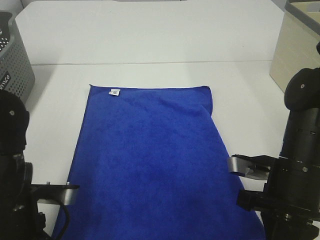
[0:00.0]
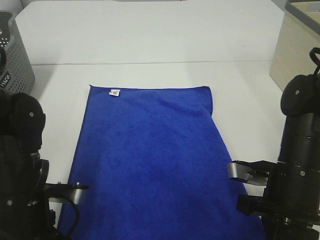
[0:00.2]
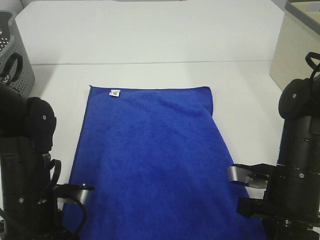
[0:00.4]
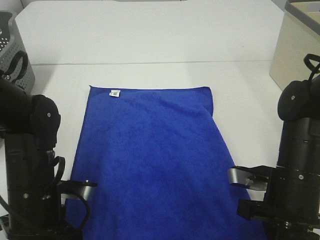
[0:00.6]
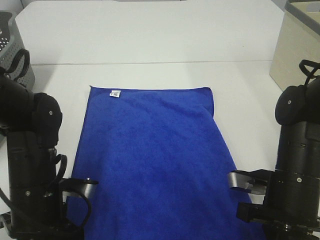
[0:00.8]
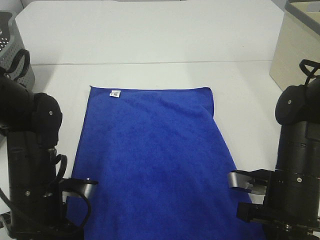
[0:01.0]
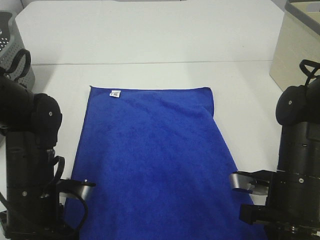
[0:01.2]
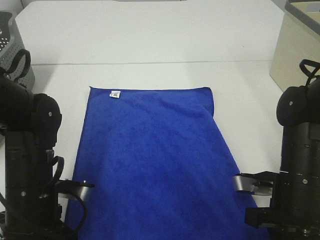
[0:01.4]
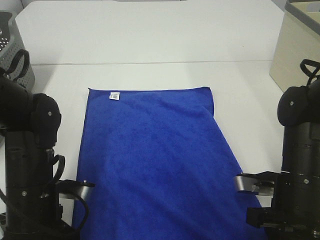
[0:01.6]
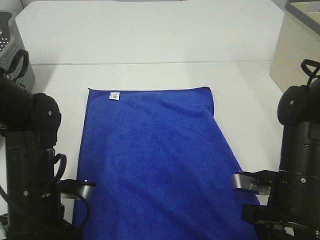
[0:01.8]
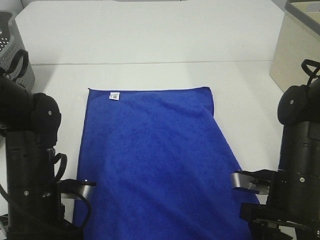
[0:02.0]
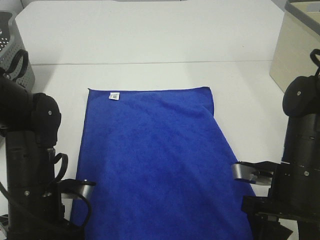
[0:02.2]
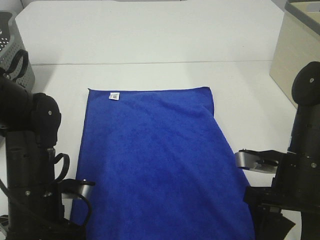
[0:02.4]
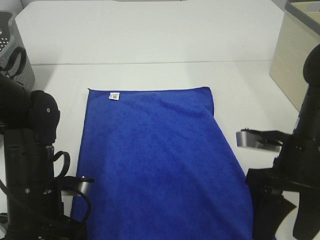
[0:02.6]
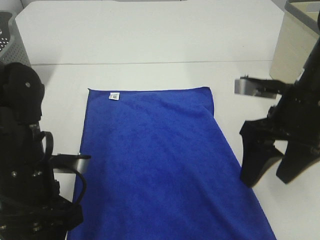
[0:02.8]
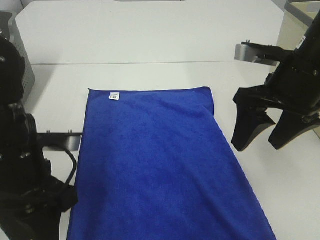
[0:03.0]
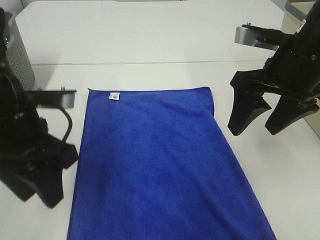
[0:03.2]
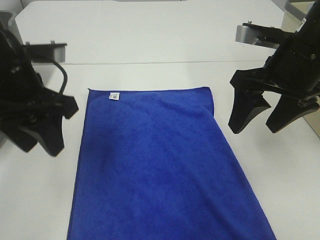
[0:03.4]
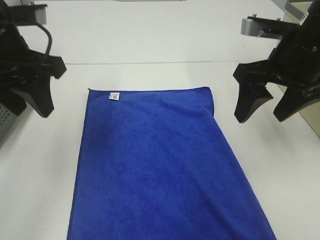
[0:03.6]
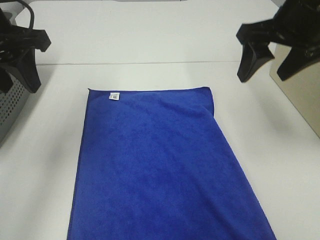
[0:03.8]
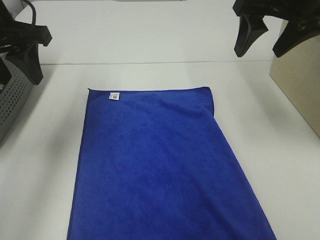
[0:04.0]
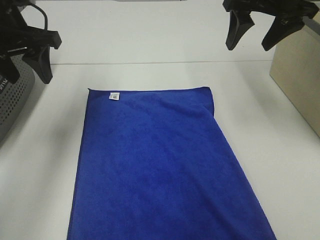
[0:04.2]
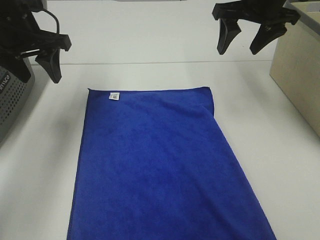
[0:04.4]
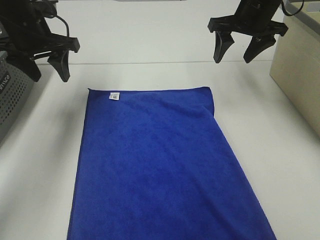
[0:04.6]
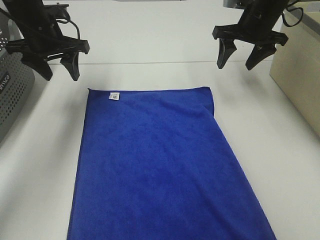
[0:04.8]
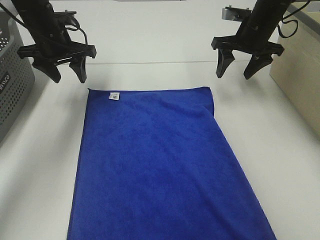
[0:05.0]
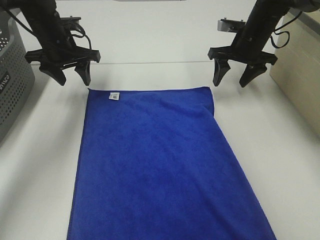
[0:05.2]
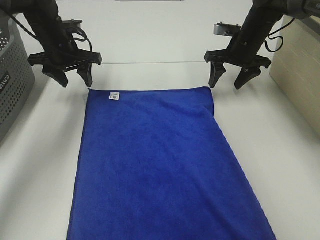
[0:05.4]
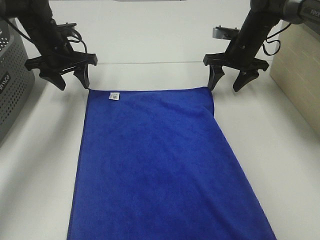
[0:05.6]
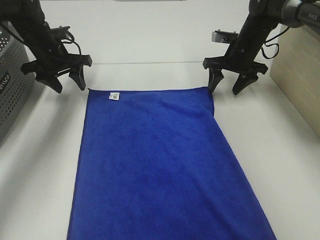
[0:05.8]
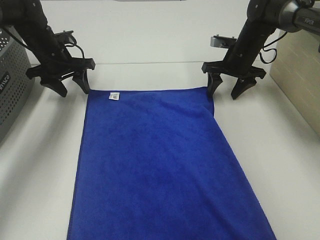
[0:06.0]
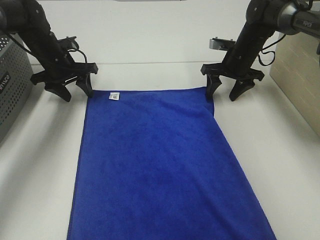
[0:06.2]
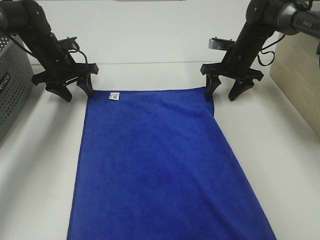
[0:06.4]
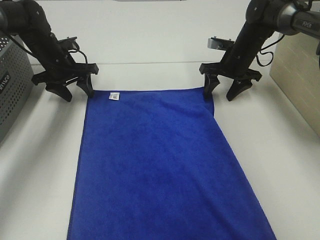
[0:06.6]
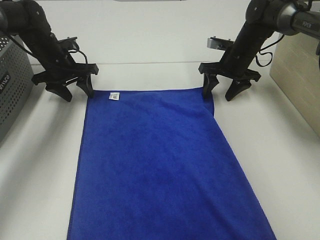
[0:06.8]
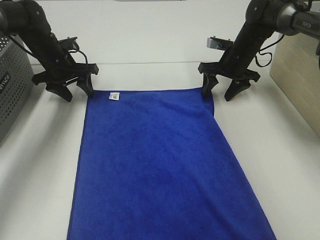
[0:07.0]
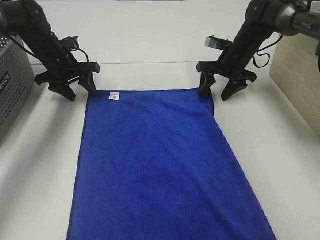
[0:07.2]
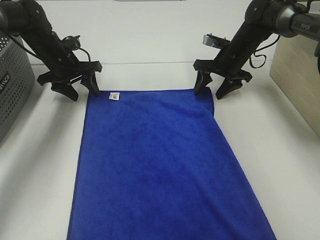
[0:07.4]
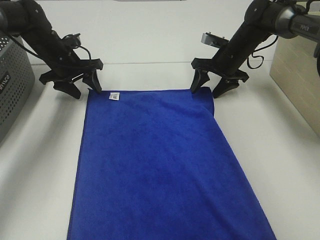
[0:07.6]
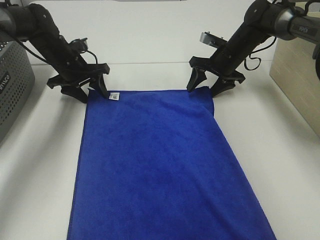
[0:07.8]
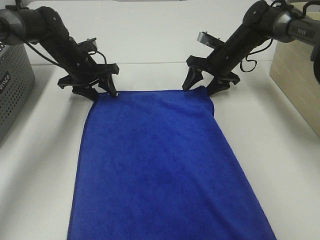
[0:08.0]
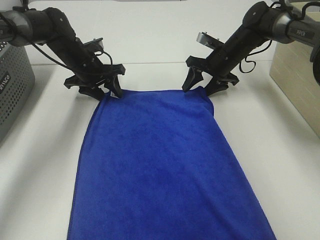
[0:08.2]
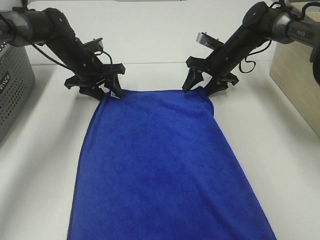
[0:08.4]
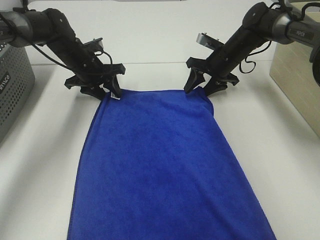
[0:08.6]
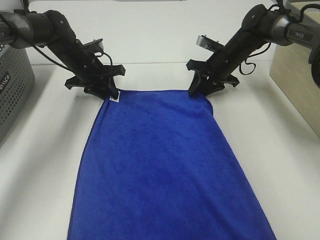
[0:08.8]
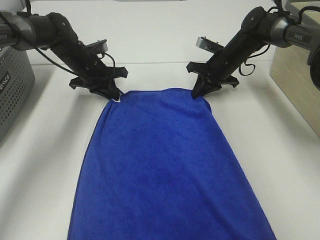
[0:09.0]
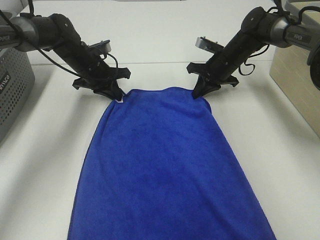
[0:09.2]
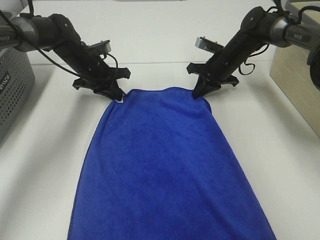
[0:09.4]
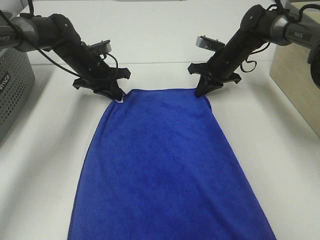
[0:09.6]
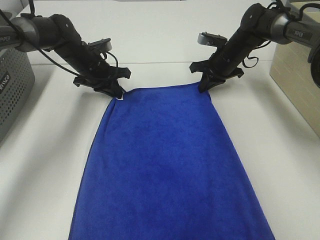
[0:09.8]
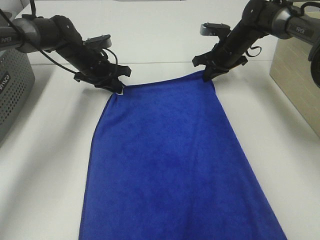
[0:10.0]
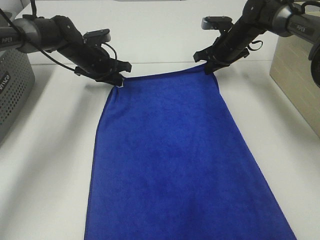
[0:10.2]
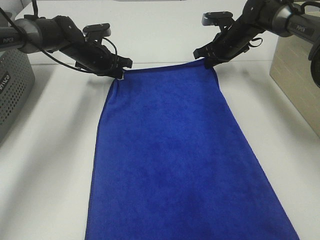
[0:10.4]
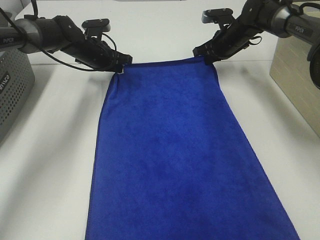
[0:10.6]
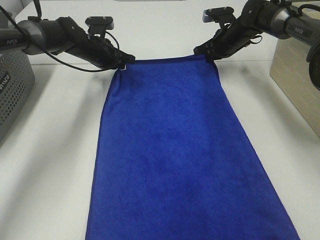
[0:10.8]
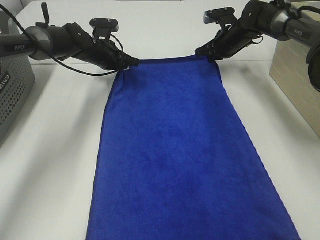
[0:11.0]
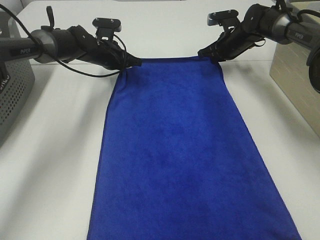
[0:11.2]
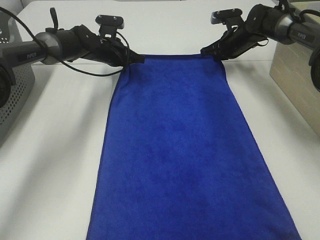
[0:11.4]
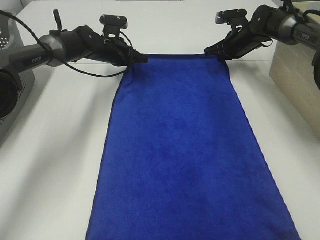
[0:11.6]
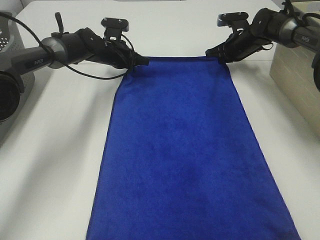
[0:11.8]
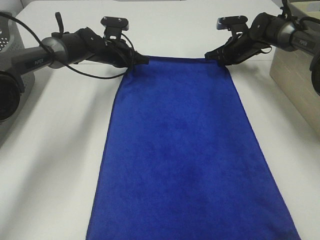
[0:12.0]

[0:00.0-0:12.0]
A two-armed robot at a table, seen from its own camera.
Task of the whole recording: Remove the towel and place it.
Step, 0:00.0 to 0:06.8: Left hand:adjust the blue towel.
Step, 0:00.0 to 0:06.8: Right hand:adjust the blue towel.
0:00.0 to 0:01.6: The right gripper opens up, while the left gripper opens.
0:01.6 to 0:03.0: The left gripper goes approximately 10 cm upward; the right gripper travels upward and forward by roughly 15 cm, and opens.
0:03.0 to 0:04.4: Both grippers move forward, some 20 cm.
0:04.4 to 0:06.0: The two grippers go about 15 cm downward and forward.
0:06.0 to 0:07.6: The grippers make only small movements.
0:07.6 to 0:09.0: The right gripper closes up. Meanwhile the left gripper heads to the right, covering some 5 cm, and closes its fingers.
0:09.0 to 0:10.4: The right gripper moves about 5 cm.
0:10.4 to 0:12.0: The right gripper ends up about 5 cm from where it was.

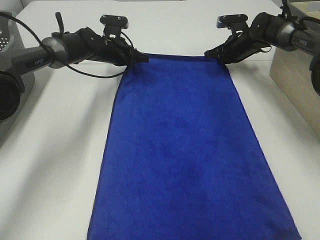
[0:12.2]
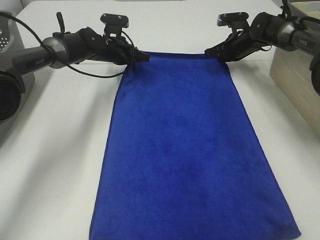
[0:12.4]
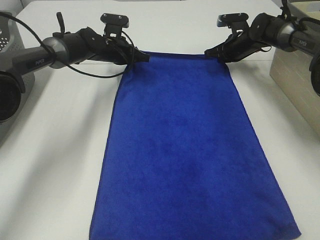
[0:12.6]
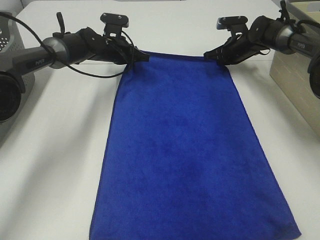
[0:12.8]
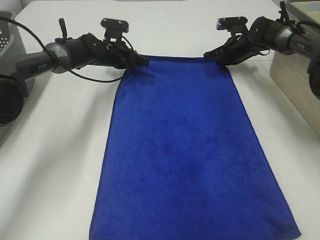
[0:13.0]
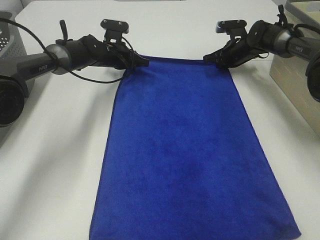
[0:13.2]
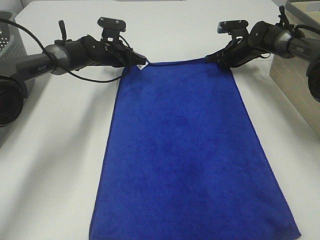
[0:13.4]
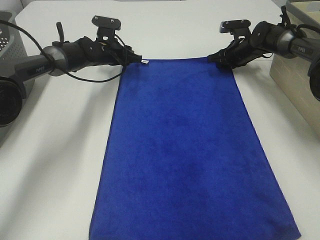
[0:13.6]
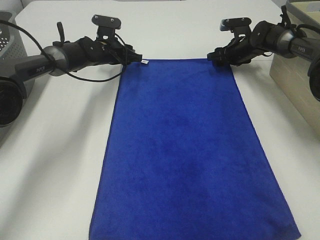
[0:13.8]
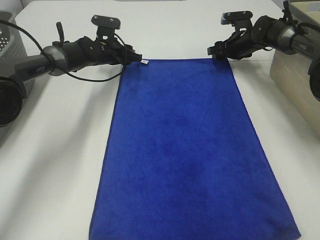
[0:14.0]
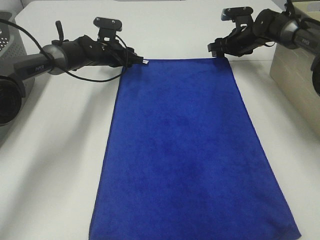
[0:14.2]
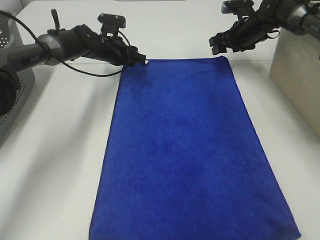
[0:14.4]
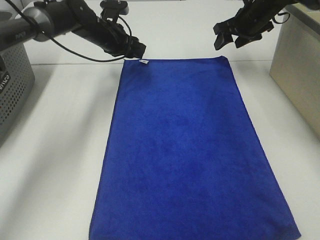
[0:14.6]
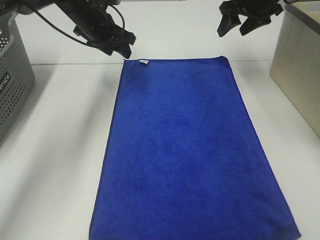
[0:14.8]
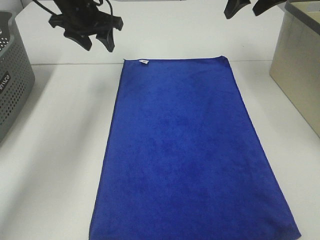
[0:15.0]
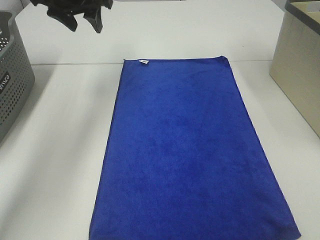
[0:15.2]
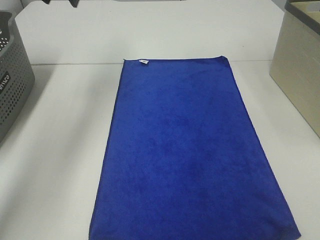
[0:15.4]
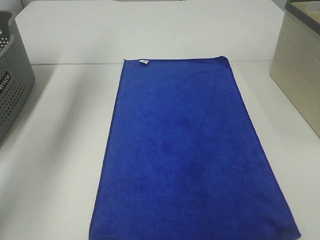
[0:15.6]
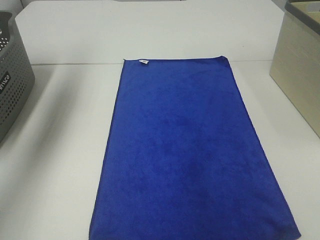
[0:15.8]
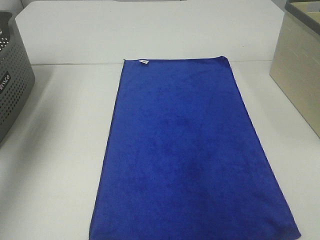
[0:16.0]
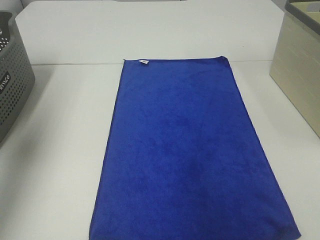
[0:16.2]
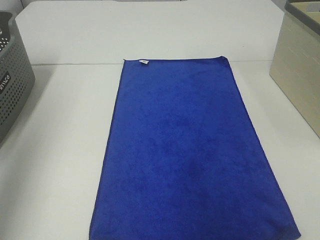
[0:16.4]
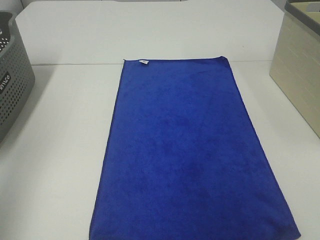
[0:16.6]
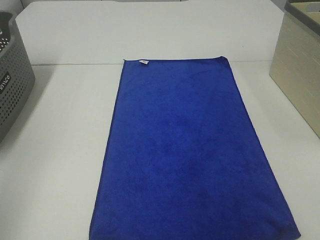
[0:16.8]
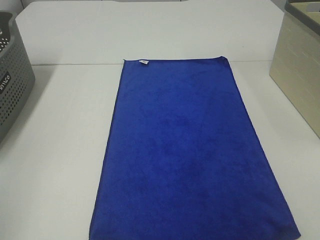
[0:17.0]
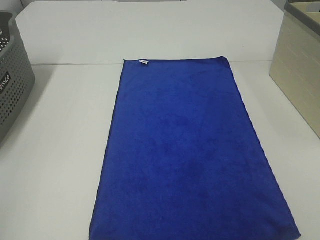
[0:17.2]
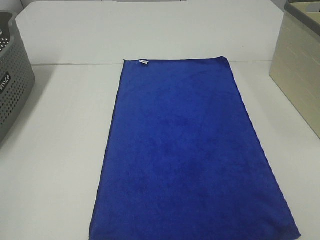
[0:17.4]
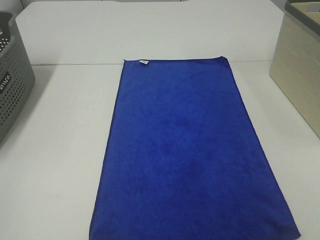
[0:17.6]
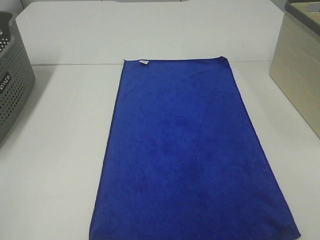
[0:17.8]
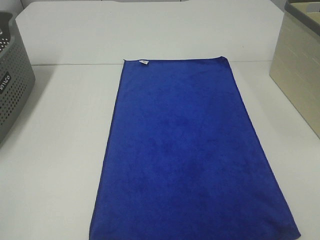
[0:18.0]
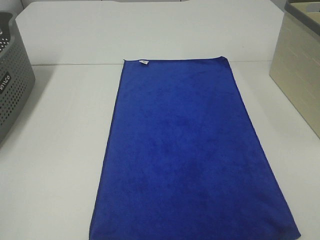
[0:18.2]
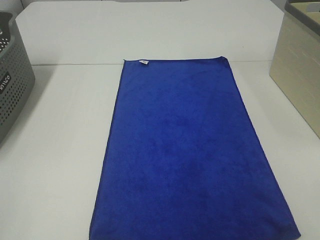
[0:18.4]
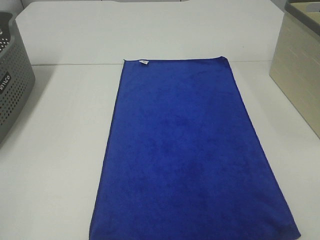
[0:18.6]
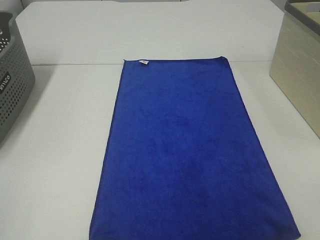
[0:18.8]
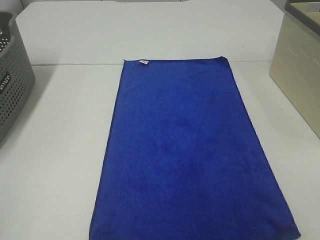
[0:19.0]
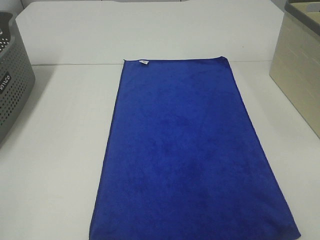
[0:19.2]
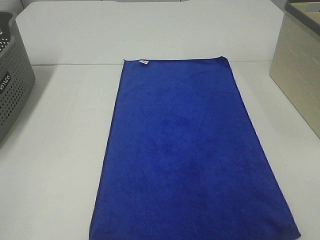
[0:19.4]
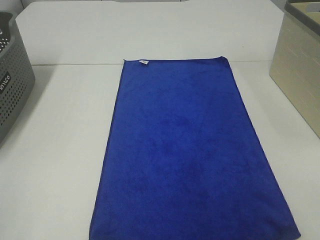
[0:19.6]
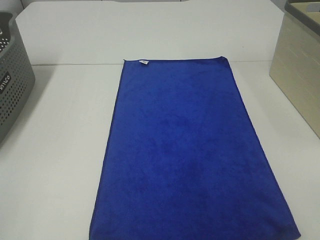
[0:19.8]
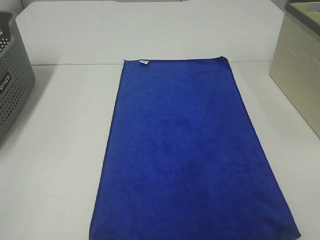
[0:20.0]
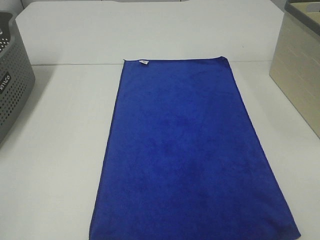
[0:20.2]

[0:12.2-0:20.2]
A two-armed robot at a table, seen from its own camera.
Task of the whole recording: Remove the towel and place it.
0:12.2 to 0:13.8: The right gripper opens up; the left gripper opens.
0:13.8 to 0:15.4: Both grippers travel together upward and backward, about 30 cm.
0:15.4 to 0:17.0: The left gripper travels backward by roughly 40 cm.
0:18.6 to 0:20.2: Both grippers stay put.

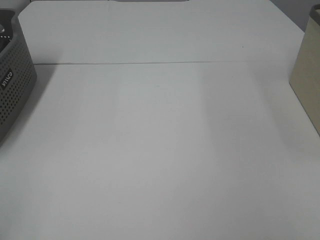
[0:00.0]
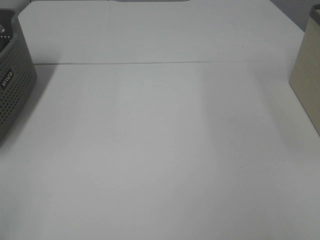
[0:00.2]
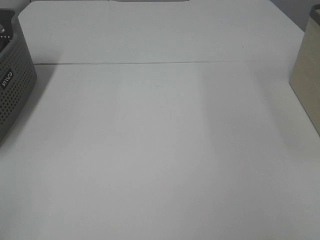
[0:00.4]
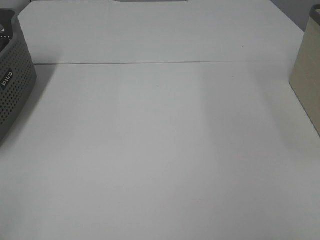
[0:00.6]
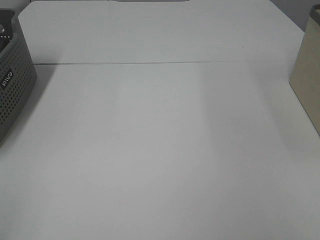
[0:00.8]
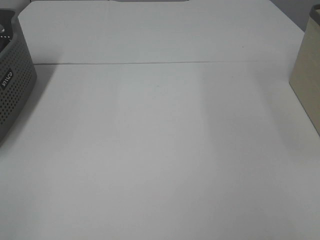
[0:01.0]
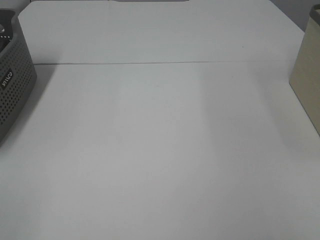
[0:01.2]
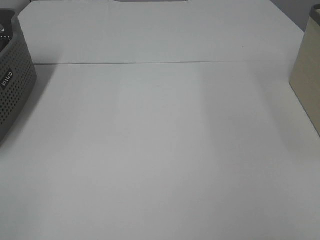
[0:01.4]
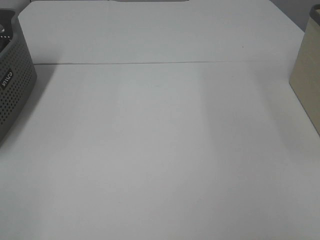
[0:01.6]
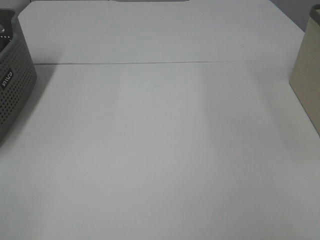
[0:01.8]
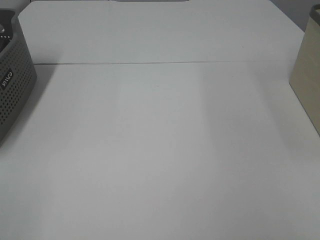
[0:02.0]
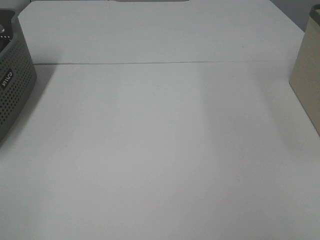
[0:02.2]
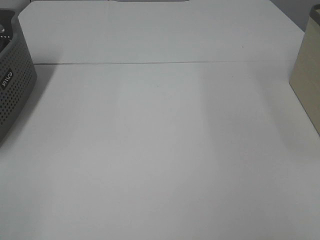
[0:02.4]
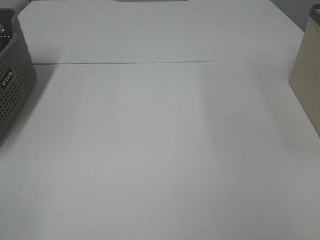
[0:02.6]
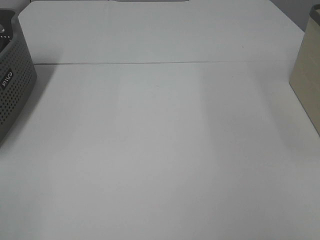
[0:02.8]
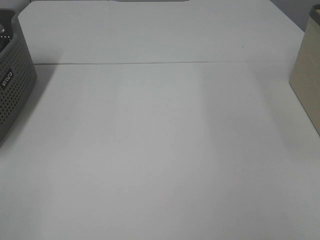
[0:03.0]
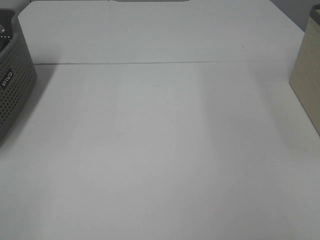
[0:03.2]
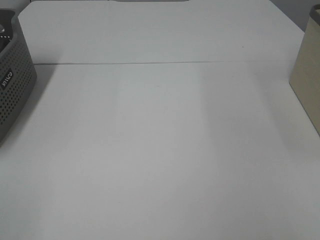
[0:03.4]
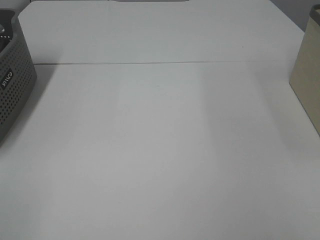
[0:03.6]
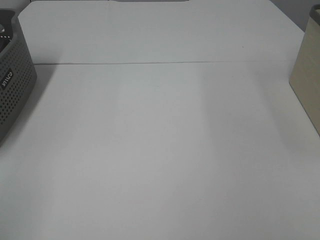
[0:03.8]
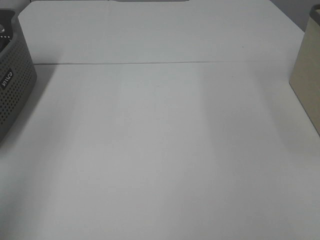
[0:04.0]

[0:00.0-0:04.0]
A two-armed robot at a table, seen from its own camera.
Task of the whole recording: Remove the towel and place it.
0:00.0 to 0:02.6: Neither gripper changes place.
0:02.6 to 0:04.0: The left gripper is displaced forward and upward by roughly 15 cm.
